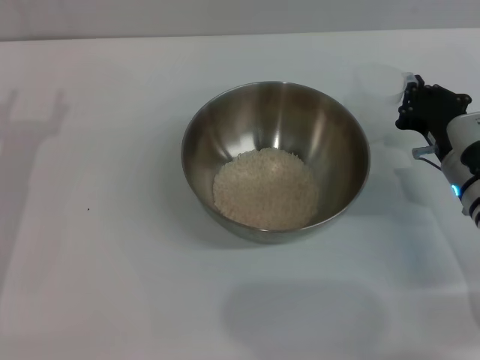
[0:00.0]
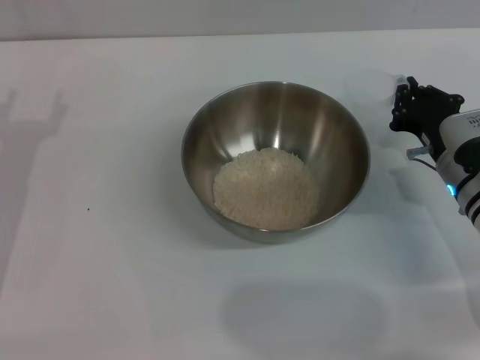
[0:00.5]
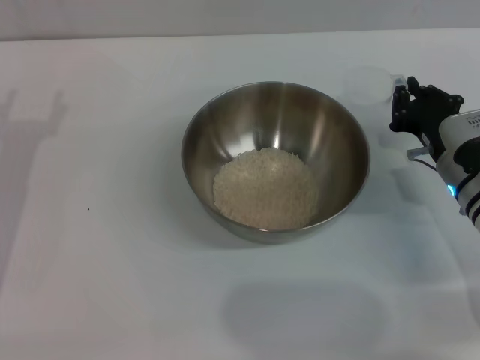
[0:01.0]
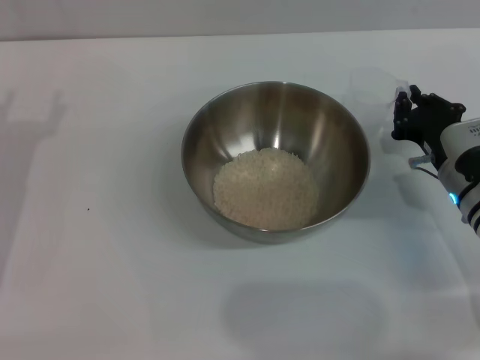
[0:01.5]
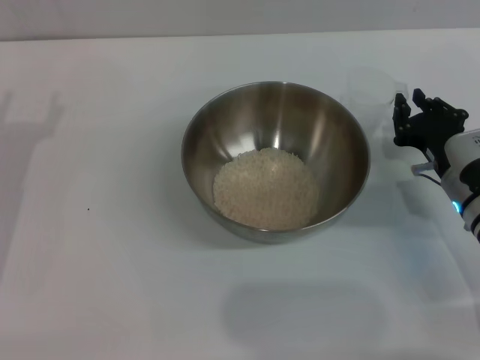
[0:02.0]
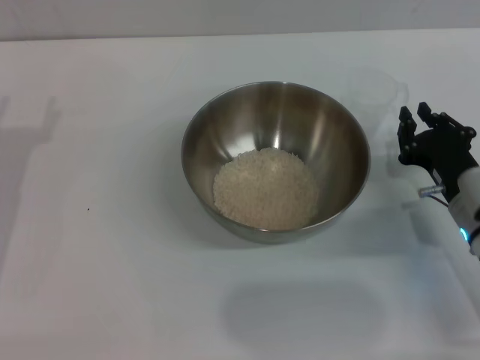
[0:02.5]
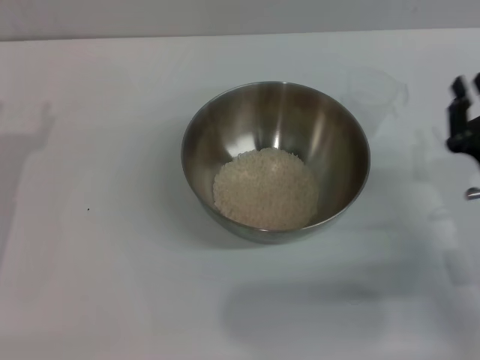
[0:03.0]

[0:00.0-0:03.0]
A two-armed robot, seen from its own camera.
Task of the whole recording: Place the bowl in the middle of the table with one hand and pour the rice from the grain cup into it with the other hand.
Step, 0:00.0 to 0:02.0: Place the cup on the table with the right gripper.
0:00.0 to 0:01.5: The two grippers keep their place.
0:01.5 to 0:03.0: The right gripper is displaced backward by about 10 cm.
